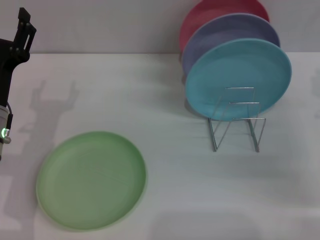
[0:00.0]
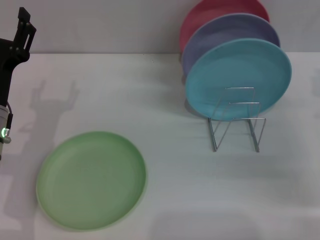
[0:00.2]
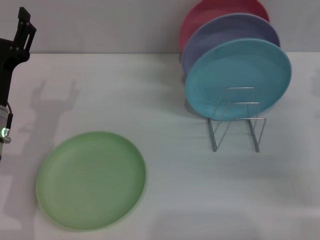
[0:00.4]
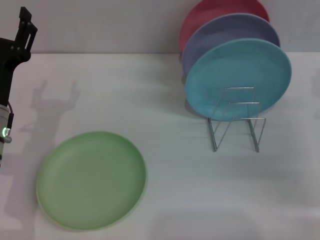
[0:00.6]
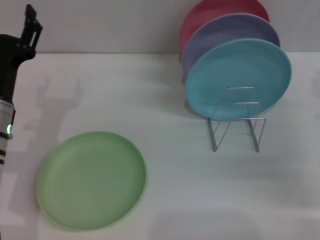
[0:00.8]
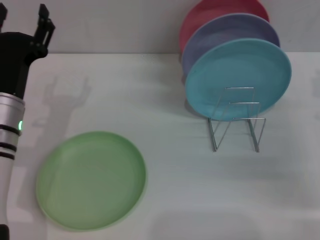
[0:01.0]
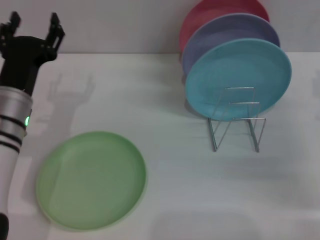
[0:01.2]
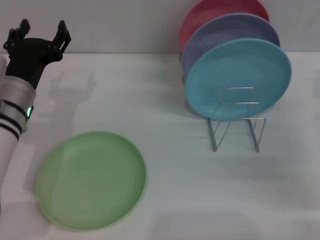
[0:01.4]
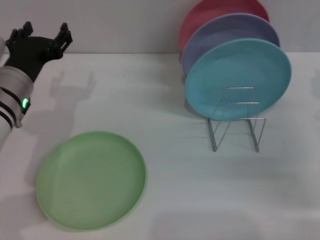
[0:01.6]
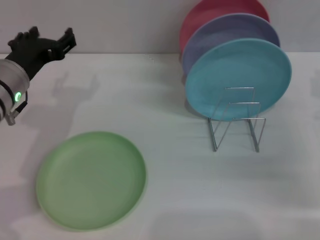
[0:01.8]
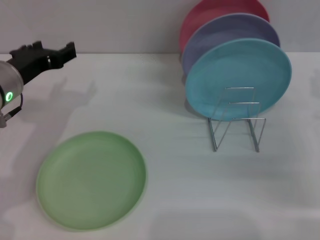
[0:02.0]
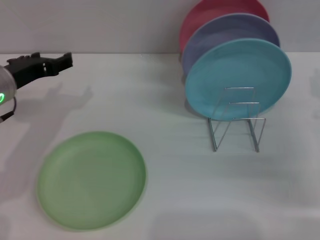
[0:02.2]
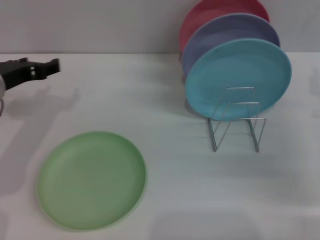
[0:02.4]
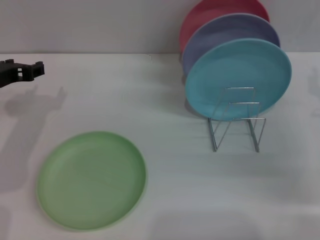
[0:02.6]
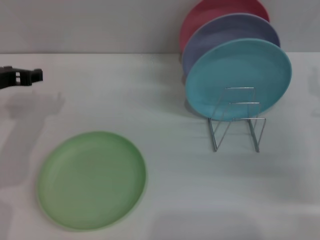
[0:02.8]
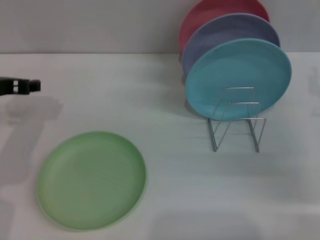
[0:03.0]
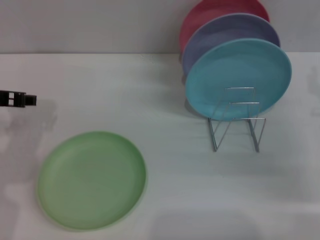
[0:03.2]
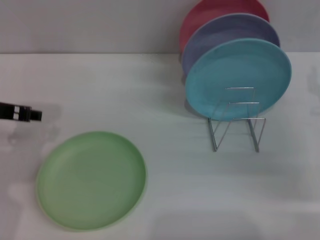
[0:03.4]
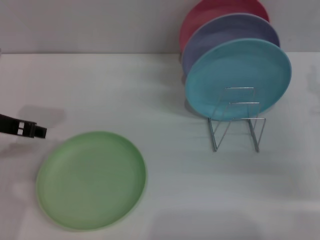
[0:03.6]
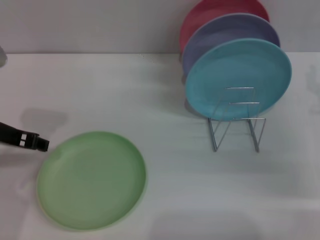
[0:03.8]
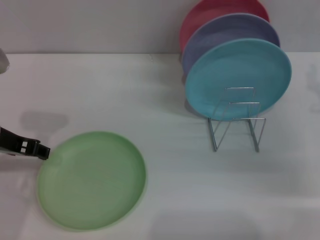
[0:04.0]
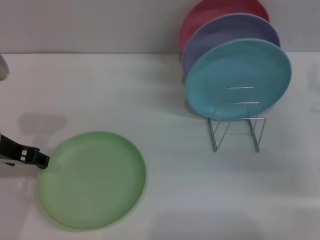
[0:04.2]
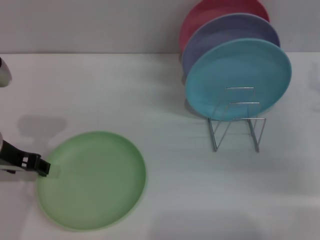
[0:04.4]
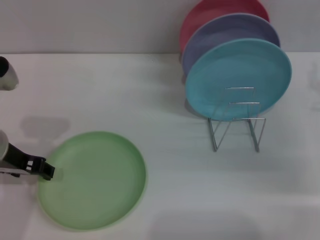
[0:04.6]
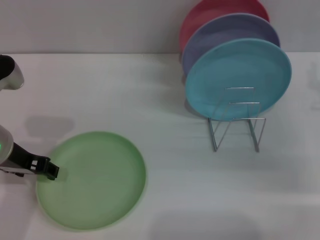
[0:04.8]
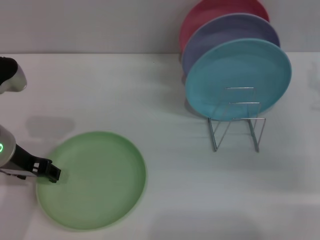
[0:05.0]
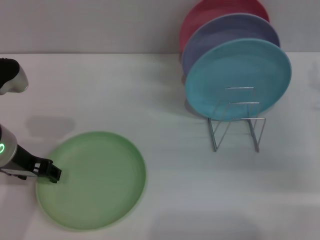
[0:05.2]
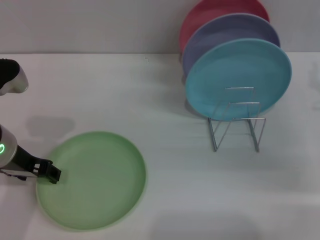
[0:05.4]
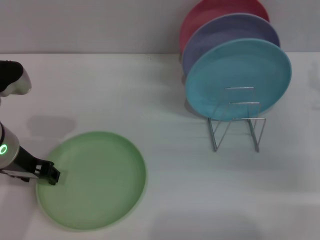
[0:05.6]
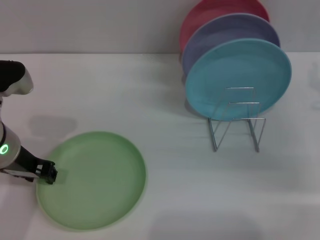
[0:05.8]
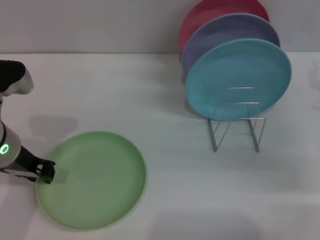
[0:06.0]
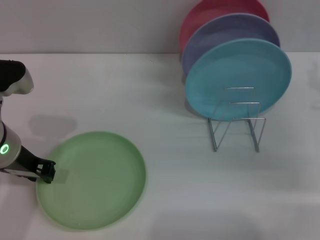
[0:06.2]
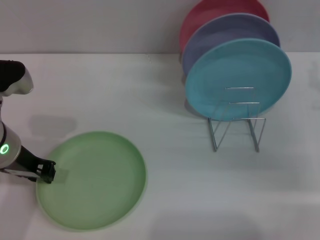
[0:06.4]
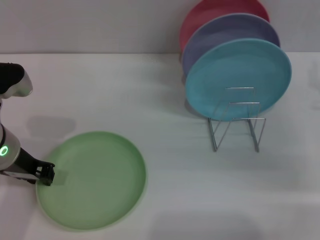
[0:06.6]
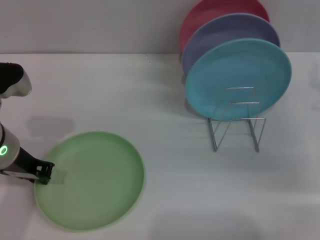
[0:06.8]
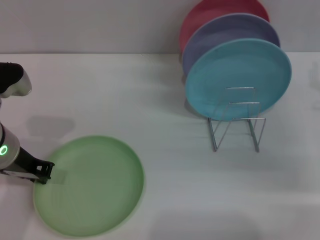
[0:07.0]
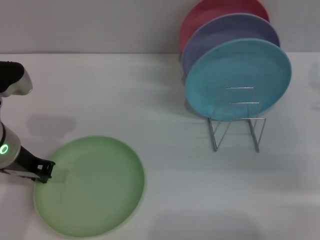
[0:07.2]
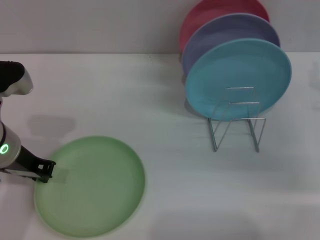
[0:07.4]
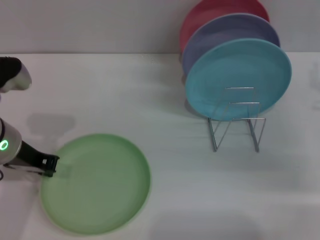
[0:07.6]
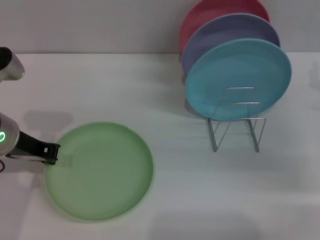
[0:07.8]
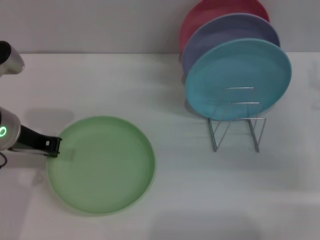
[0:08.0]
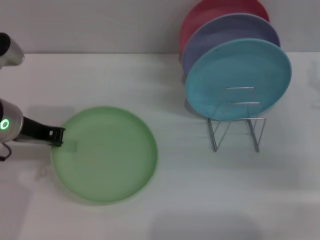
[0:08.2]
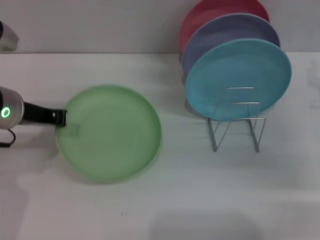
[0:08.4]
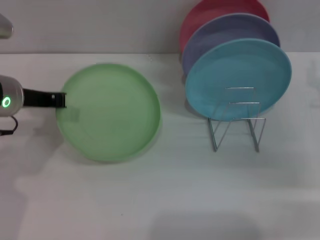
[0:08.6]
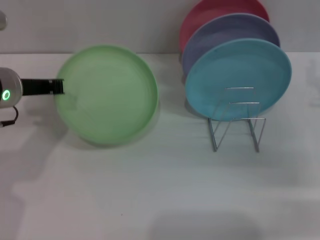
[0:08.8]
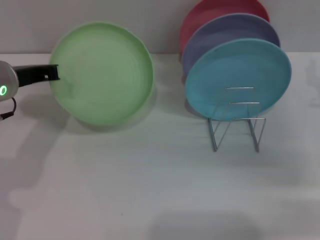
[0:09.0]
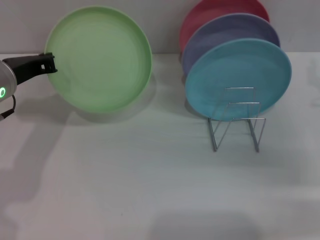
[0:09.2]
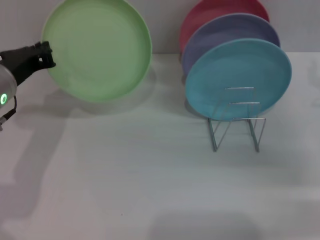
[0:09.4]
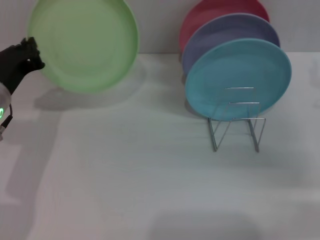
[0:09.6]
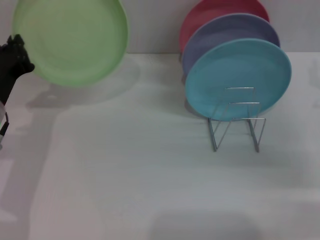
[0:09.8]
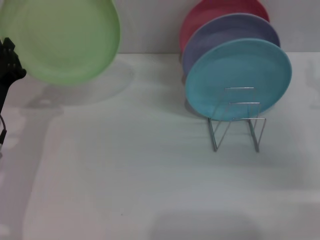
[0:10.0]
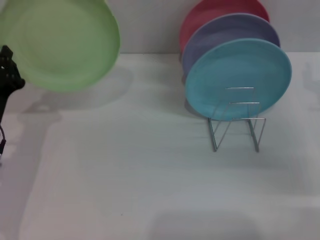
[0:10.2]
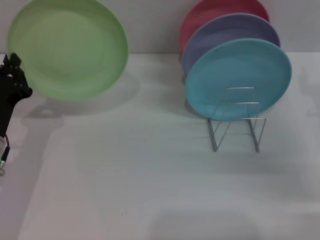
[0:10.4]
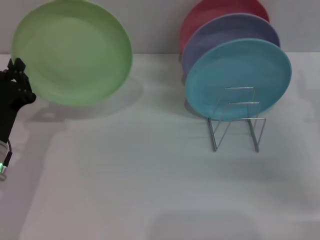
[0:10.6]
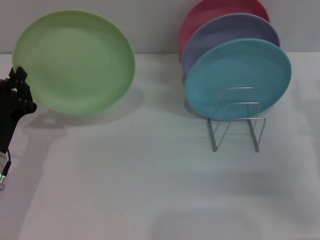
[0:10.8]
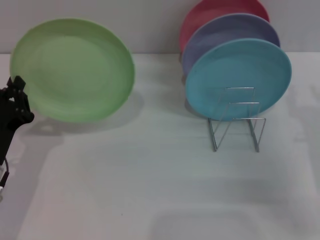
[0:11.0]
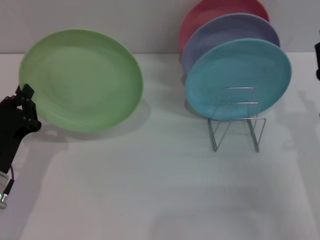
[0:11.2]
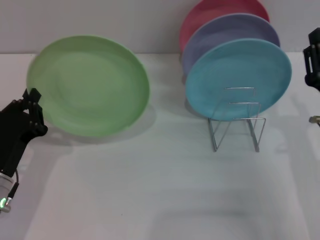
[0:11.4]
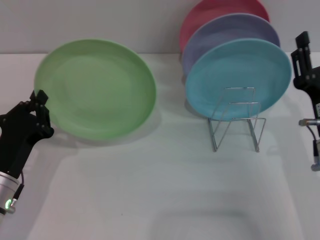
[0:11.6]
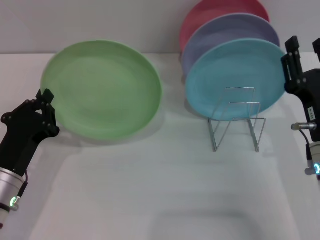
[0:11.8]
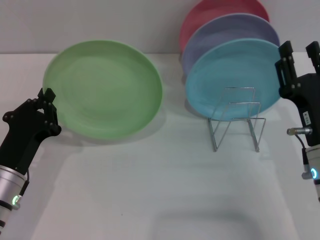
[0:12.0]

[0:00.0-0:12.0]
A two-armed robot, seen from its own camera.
Task of the whole recording: Grip the plate with one hand, pass it to the other, then set it on the shelf.
Step, 0:00.0 to 0:08.8: Pick up the plate with the left gripper.
0:00.0 to 0:01.6: The left gripper ends up roughly 5 cm from where it was.
0:01.6 to 0:03.0: The left gripper is displaced to the left by roughly 5 cm.
0:03.0 to 0:04.4: The left gripper changes place by some 5 cm.
0:04.4 to 0:06.0: The grippers move only a little.
0:06.0 to 0:07.6: The left gripper closes.
0:09.0 to 0:10.4: The left gripper goes approximately 15 cm downward and backward.
0:10.4 to 0:12.0: The left gripper moves about 5 cm, while the right gripper heads to the left and backward, covering roughly 15 cm.

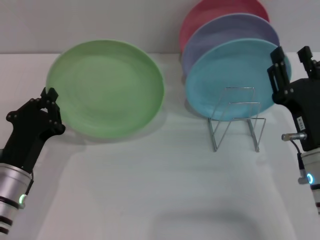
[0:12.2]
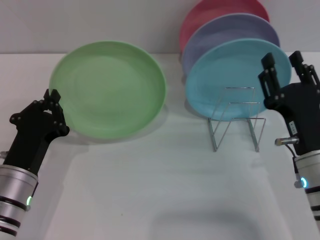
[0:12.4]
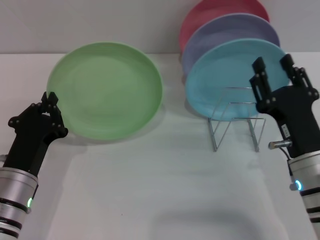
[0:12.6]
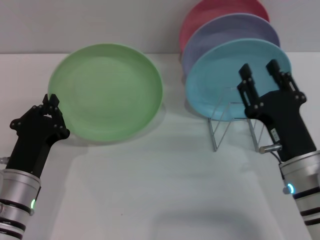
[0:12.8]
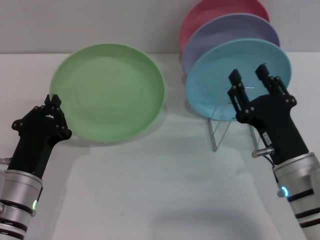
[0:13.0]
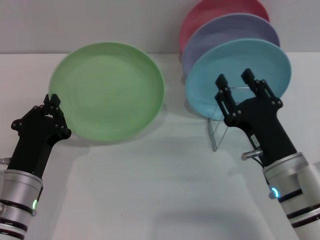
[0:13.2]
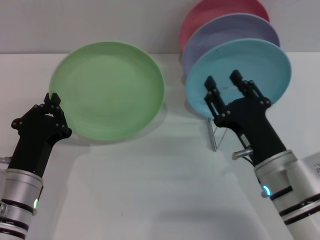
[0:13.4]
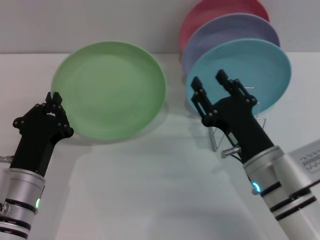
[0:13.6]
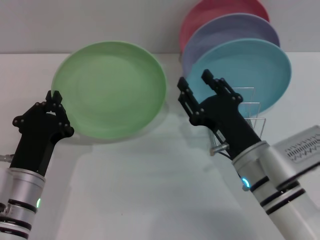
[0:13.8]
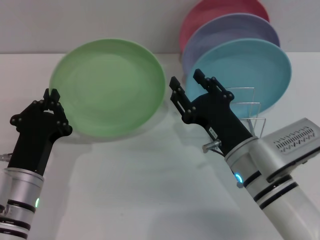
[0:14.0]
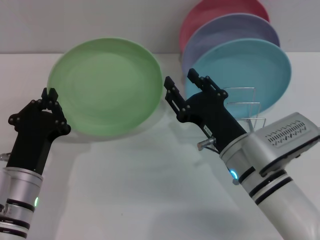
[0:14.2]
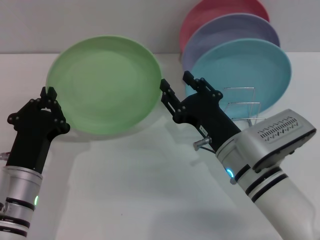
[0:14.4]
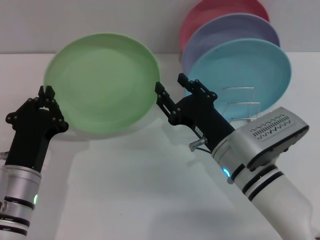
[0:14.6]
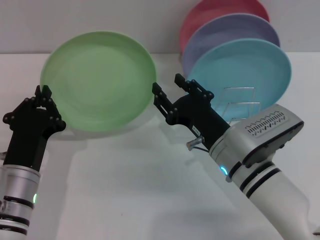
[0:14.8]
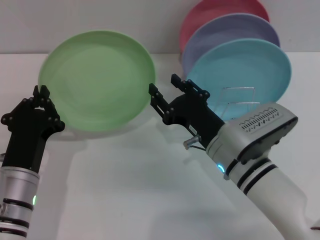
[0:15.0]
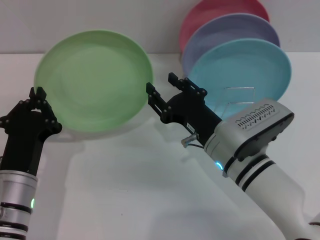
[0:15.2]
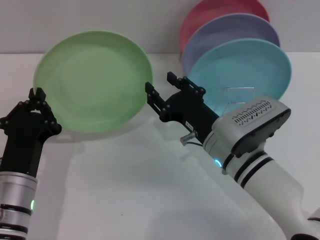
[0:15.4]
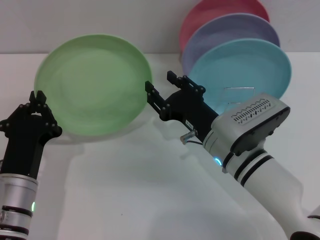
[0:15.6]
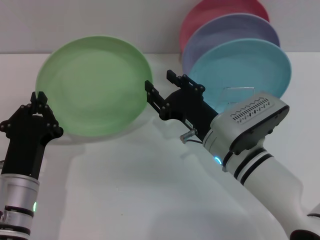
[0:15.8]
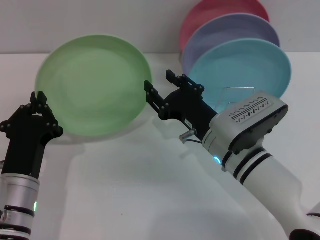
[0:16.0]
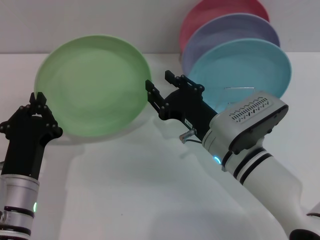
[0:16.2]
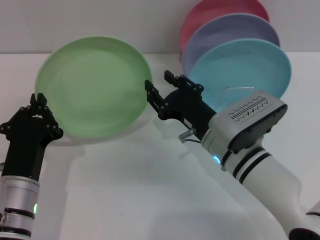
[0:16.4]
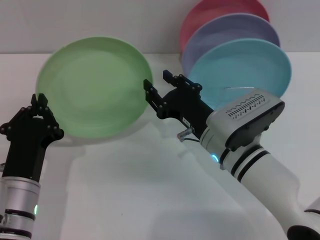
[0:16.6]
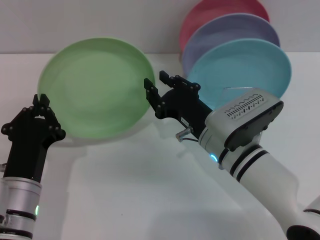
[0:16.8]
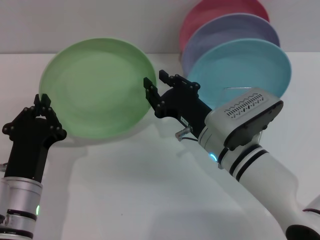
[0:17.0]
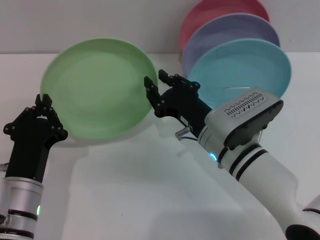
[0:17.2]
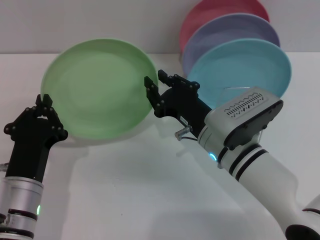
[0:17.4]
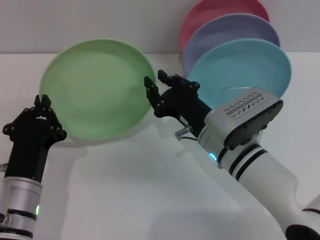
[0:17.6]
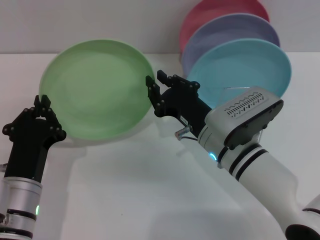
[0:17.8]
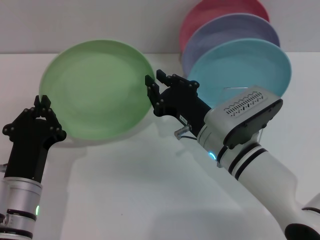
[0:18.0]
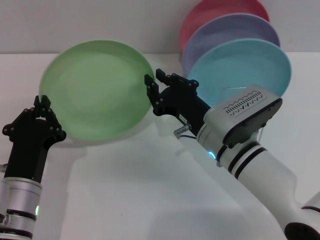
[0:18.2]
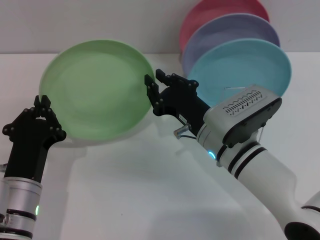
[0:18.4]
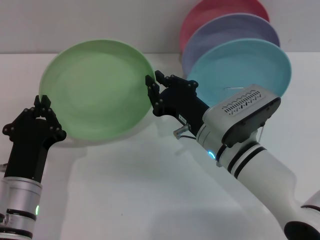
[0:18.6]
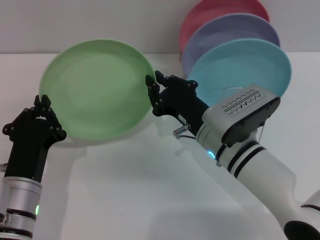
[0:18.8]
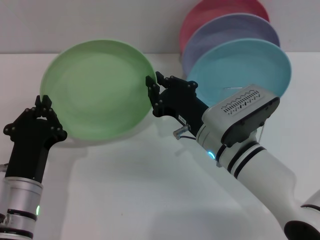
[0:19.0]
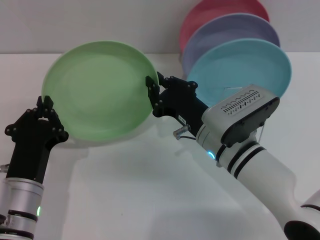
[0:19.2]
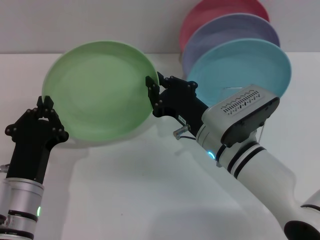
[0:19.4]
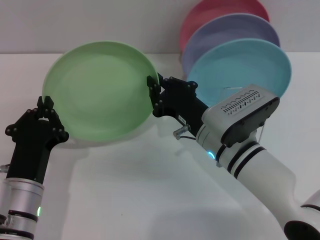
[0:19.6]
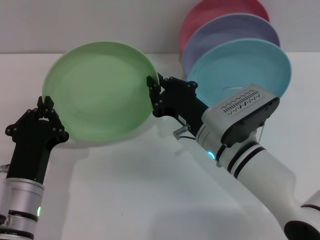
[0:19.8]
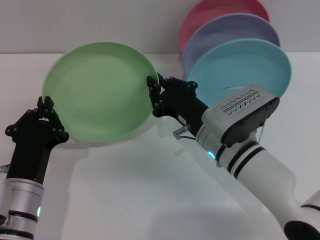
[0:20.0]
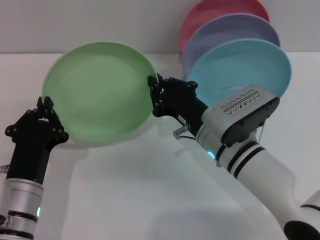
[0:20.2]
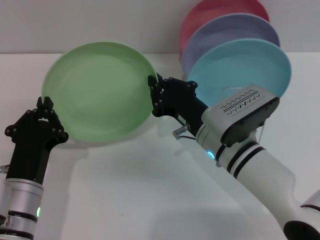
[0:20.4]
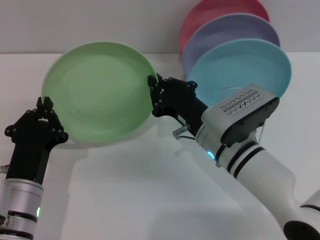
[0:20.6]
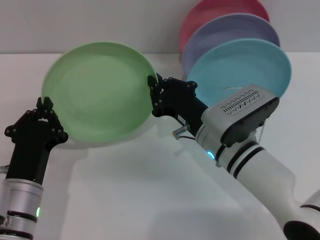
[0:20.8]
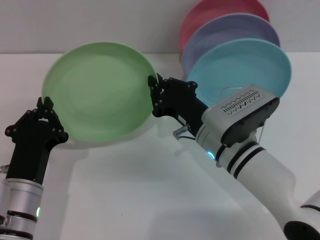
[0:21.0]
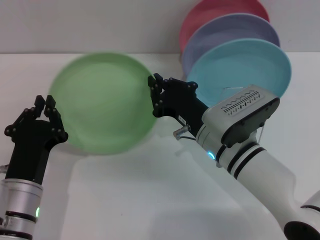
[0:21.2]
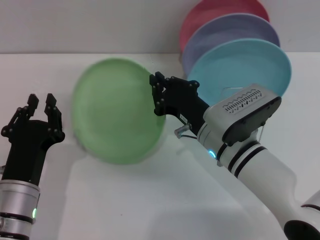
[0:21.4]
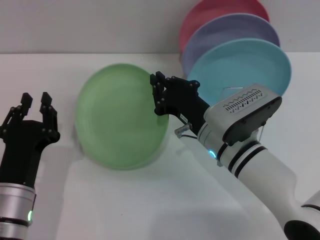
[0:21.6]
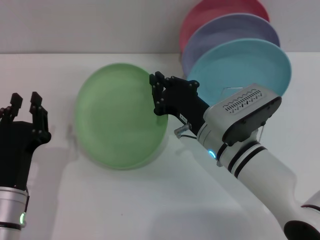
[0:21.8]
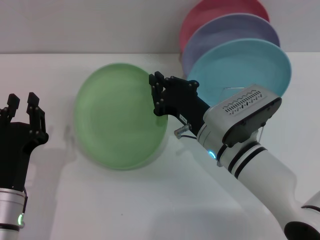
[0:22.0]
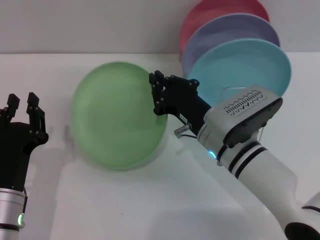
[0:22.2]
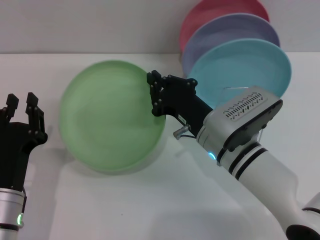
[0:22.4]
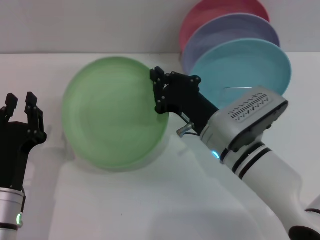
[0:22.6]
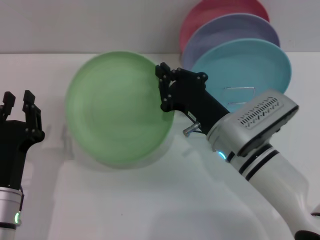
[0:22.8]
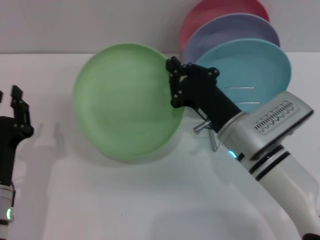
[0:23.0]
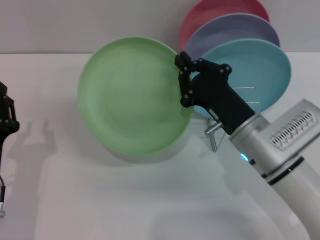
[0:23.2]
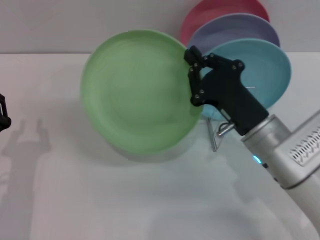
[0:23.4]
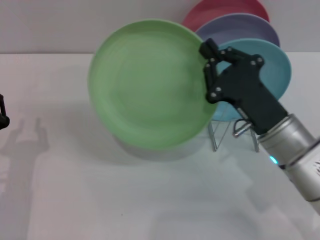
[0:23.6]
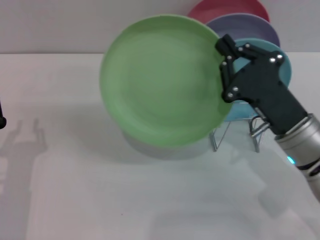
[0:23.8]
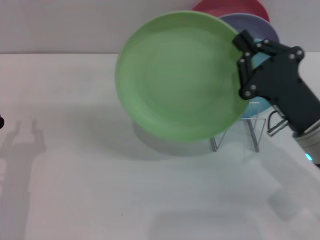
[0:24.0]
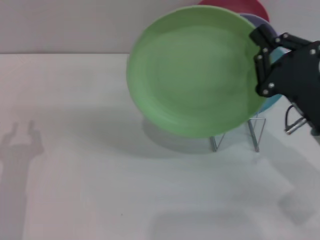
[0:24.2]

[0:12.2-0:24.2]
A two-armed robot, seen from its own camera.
Task of the whole recording: Grip the plate with one hand, pass it to the other, then set it on the shelf.
Step, 0:12.2 to 0:21.2: Pass the plate from the left gripper to the right gripper.
0:12.2 to 0:13.8: The right gripper shifts some 5 cm to the left.
0:15.2 to 0:16.6: Neither gripper changes place.
0:16.6 to 0:18.2: The right gripper closes up.
0:18.2 to 0:21.2: Neither gripper changes place.
0:21.2 to 0:22.6: The left gripper opens its fingers.
0:22.6 to 0:24.2: The right gripper goes about 15 cm to the right.
